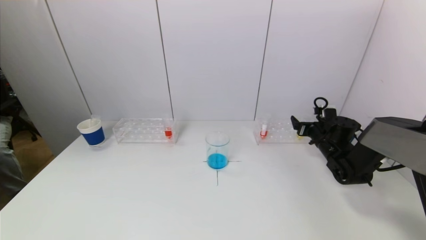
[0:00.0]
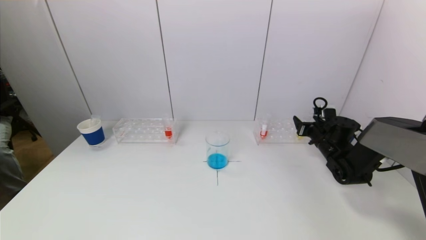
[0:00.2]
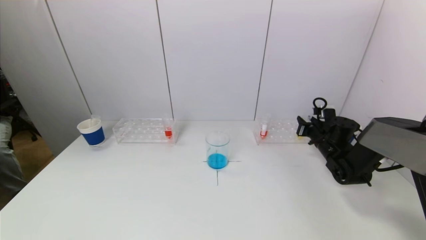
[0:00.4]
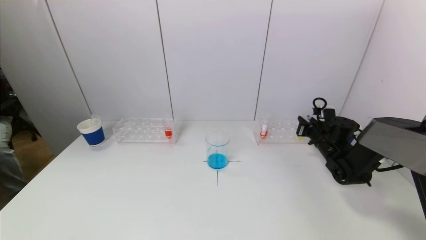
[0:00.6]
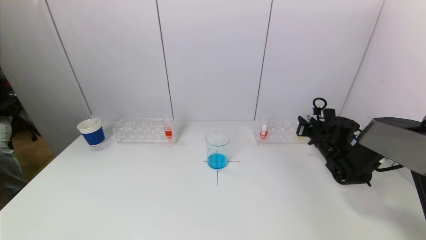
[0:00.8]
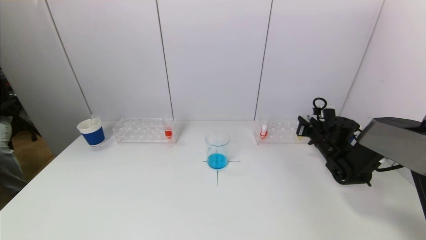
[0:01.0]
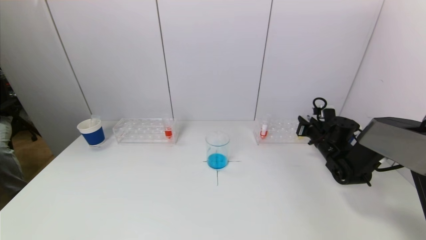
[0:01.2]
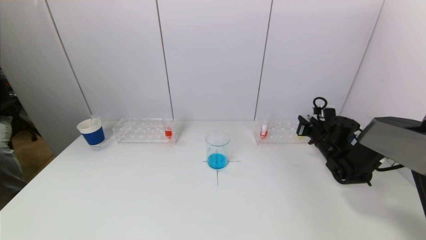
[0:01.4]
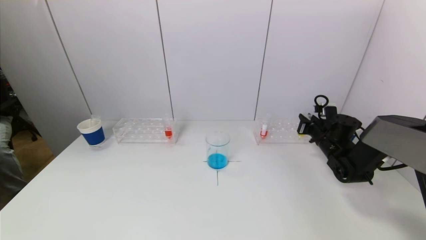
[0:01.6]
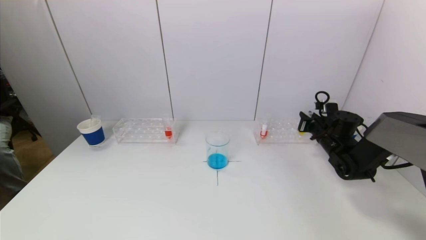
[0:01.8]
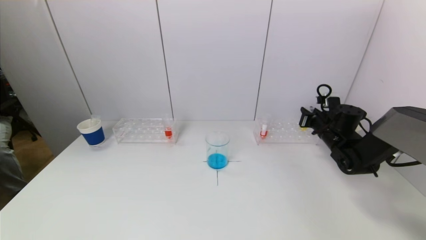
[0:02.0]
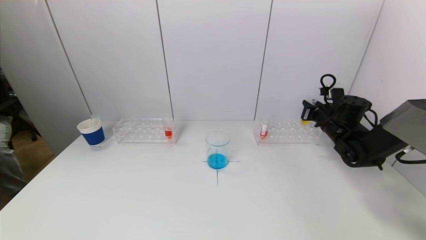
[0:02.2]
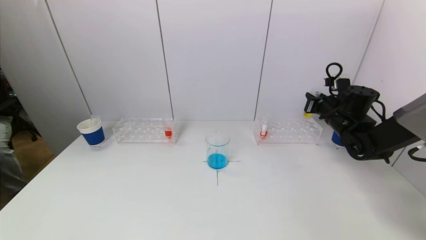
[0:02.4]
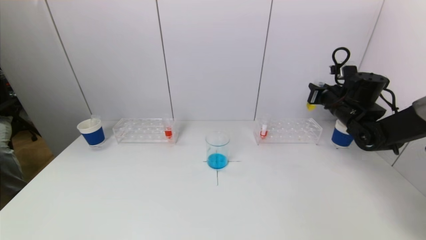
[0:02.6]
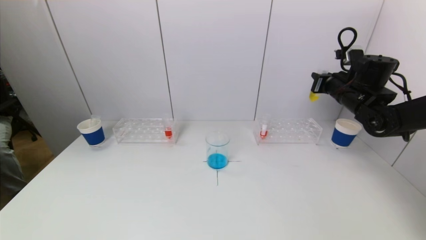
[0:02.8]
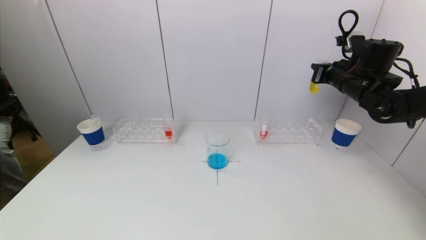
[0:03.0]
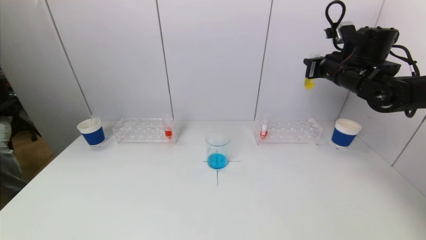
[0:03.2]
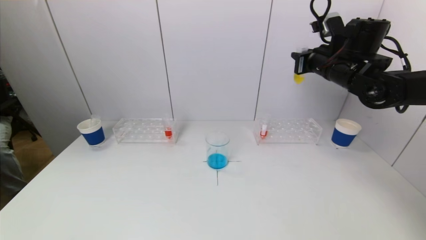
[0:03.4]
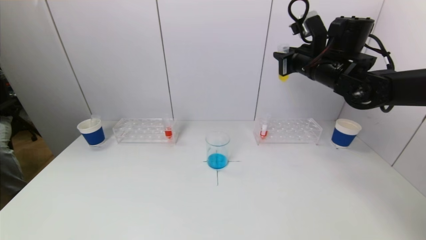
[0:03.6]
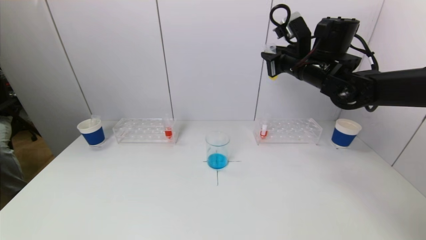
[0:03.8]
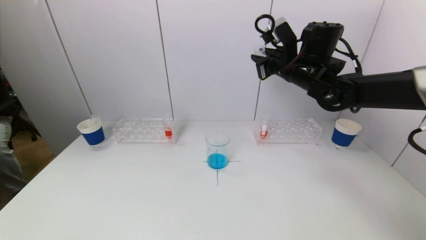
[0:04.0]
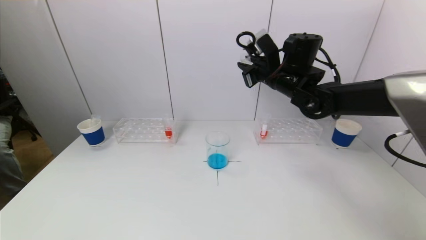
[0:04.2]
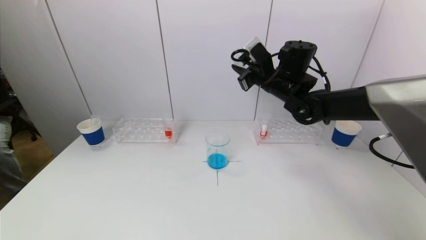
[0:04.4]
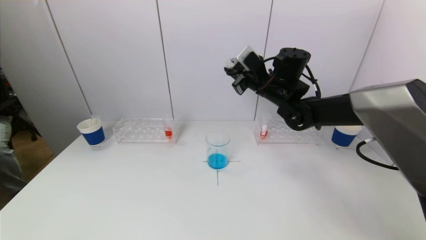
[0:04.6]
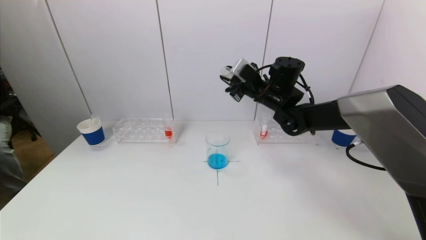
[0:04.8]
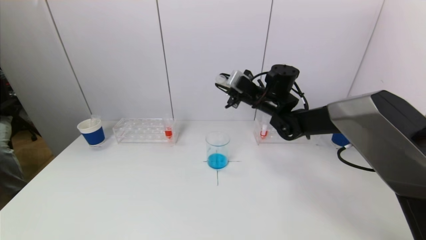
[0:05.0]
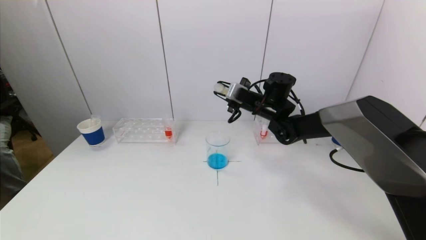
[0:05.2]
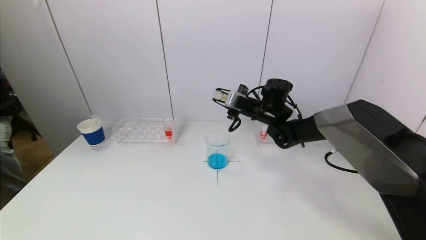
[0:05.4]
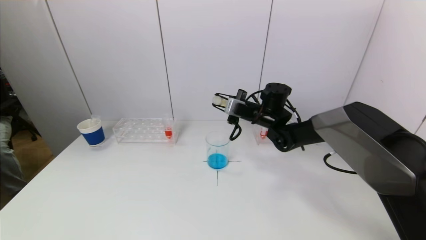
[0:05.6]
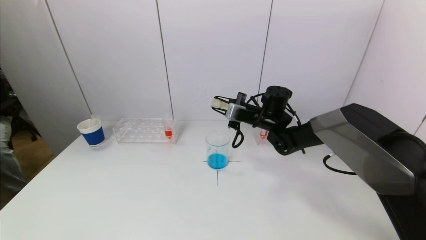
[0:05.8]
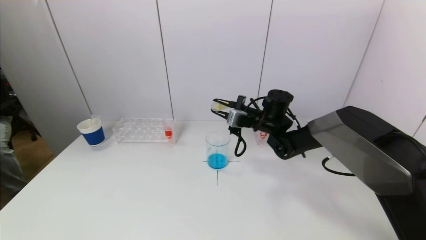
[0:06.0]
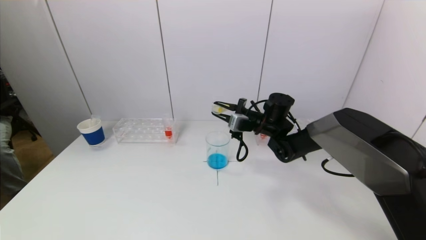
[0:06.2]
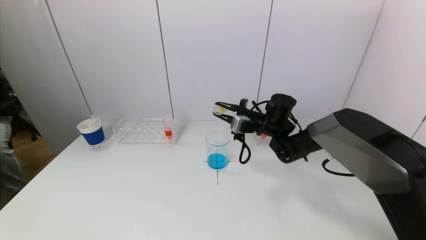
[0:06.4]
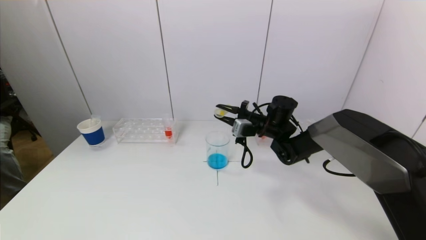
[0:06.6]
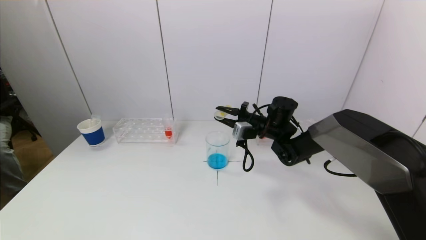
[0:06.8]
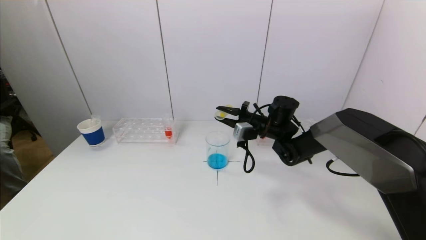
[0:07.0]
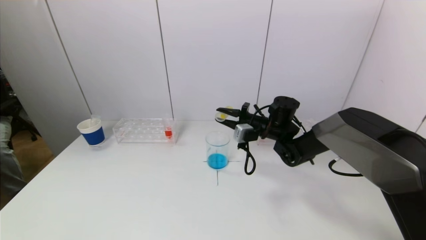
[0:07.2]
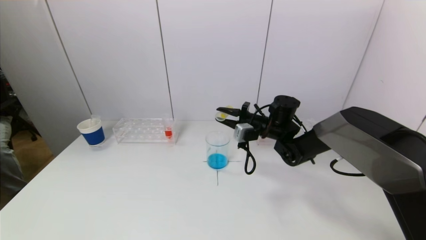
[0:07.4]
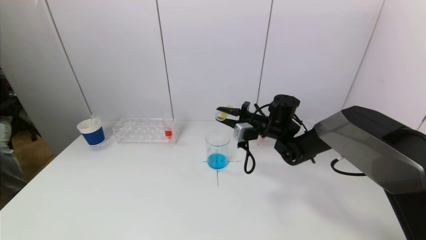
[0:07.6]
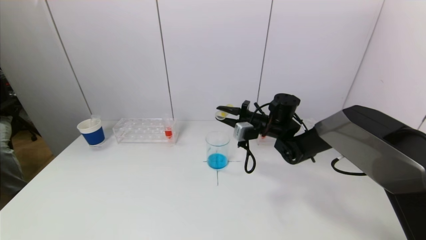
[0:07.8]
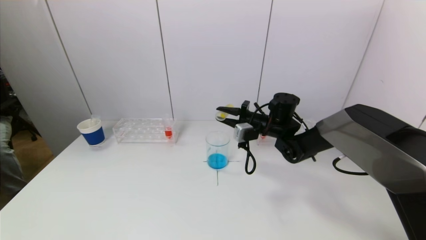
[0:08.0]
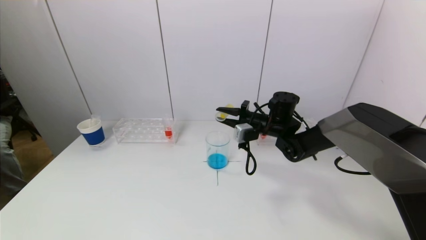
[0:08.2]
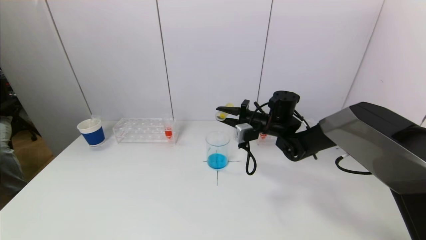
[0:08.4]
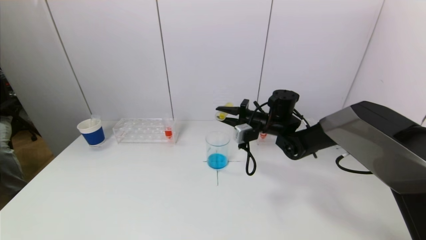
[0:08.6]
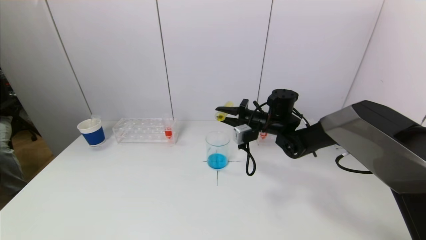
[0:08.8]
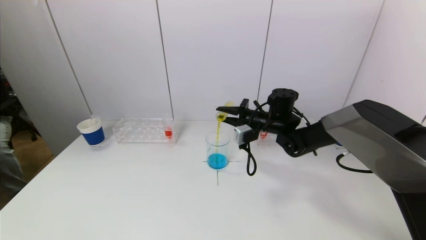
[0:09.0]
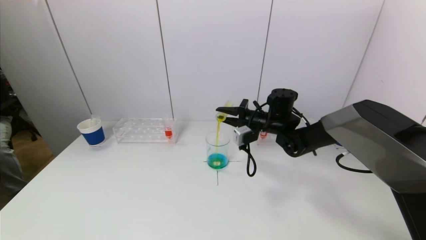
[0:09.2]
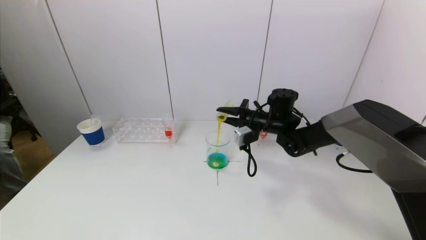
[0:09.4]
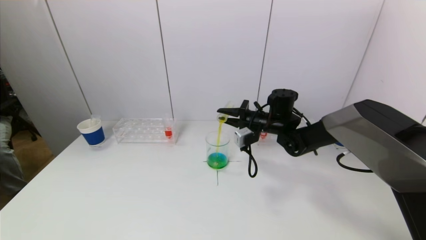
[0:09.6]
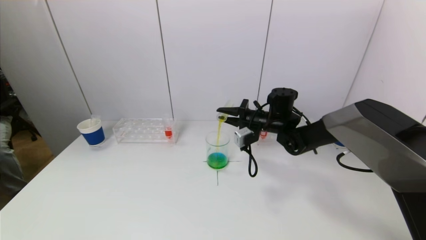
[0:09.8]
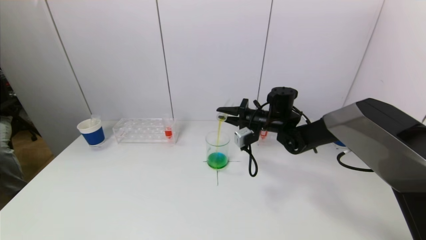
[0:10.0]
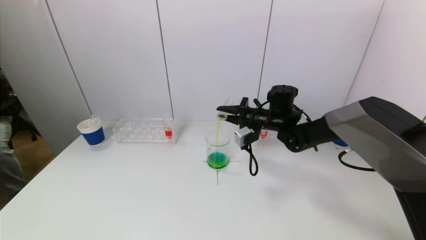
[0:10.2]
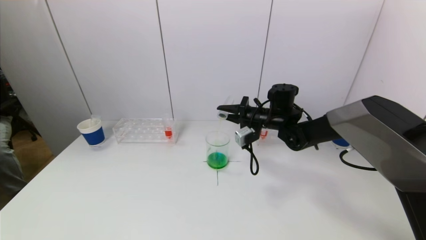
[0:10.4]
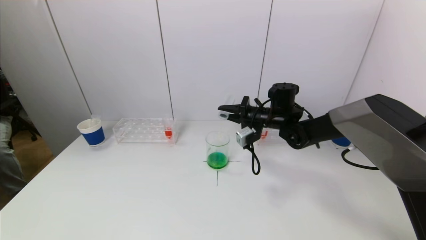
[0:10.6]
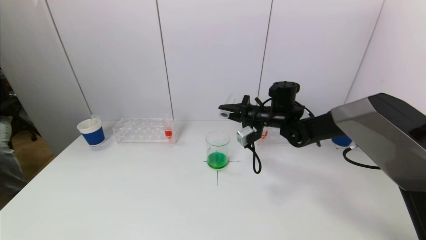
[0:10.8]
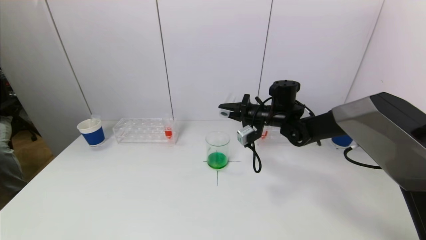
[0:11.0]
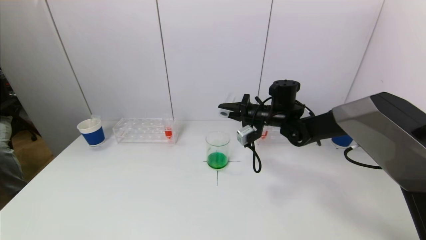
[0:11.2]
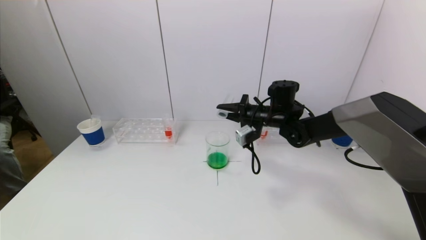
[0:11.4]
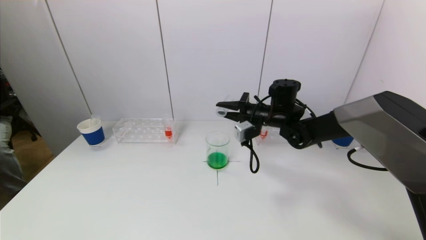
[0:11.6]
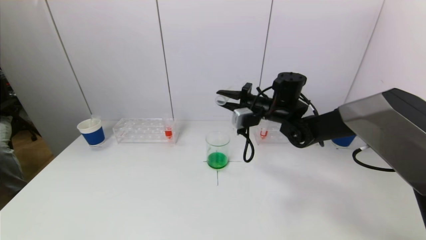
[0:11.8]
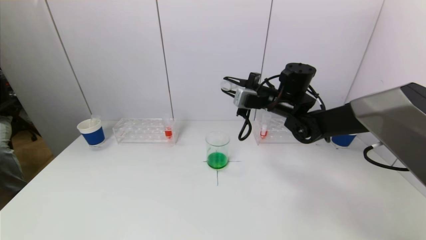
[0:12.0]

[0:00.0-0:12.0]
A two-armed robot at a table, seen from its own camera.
Task of the whole recording: pick up a test tube with pigment on left test tube rack and a test tube with pigment on right test tube rack by grippers and pour them into the beaker.
Step, 0:01.0 to 0:11.0: Pour the yellow reagent into the graduated cylinder with the right gripper.
0:00.0 to 0:01.6: The right gripper closes its fingers.
0:01.6 to 0:03.0: The right gripper heads upward, covering approximately 20 cm.
0:03.0 to 0:04.4: The right gripper shifts approximately 15 cm to the left.
0:04.4 to 0:06.0: The right gripper is displaced downward by approximately 10 cm.
0:06.0 to 0:07.6: The grippers move only a little.
0:07.6 to 0:09.0: The grippers move only a little.
0:09.0 to 0:10.4: The grippers move only a little.
0:10.4 to 0:12.0: The right gripper moves upward, about 5 cm.

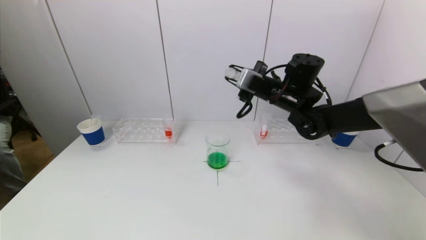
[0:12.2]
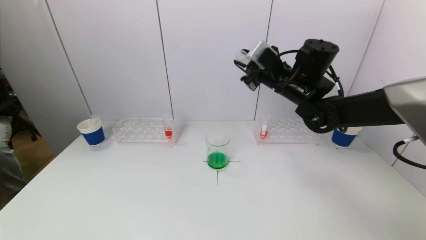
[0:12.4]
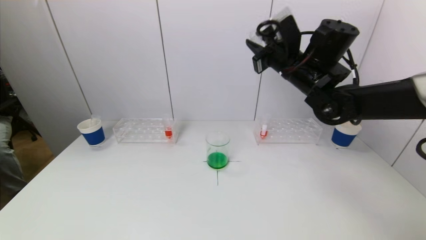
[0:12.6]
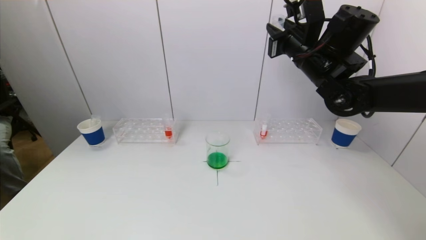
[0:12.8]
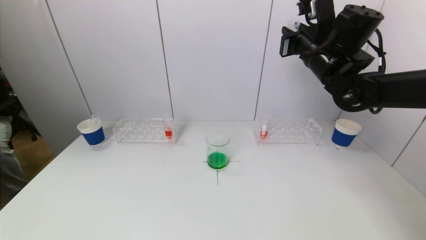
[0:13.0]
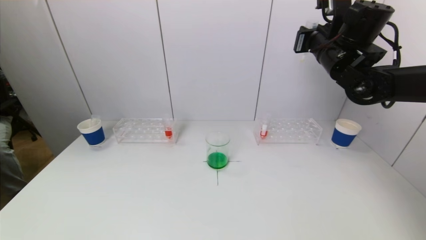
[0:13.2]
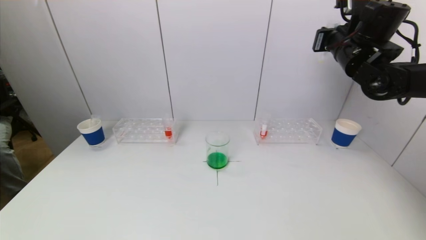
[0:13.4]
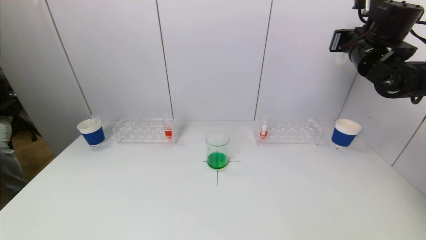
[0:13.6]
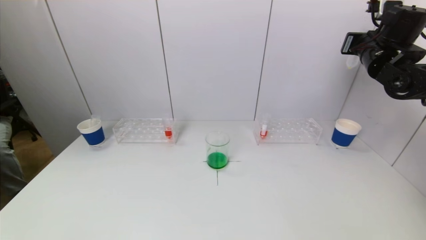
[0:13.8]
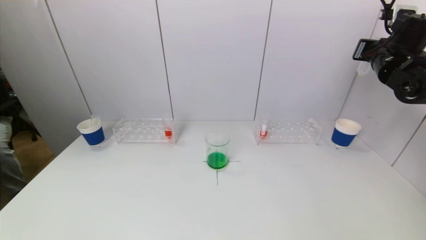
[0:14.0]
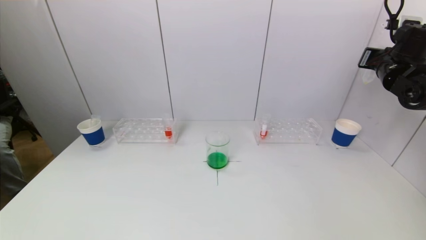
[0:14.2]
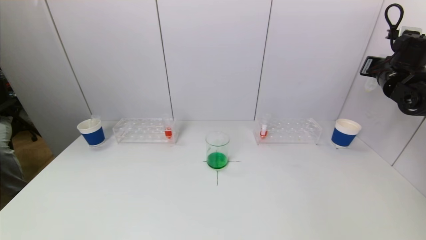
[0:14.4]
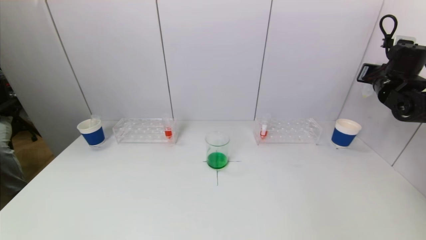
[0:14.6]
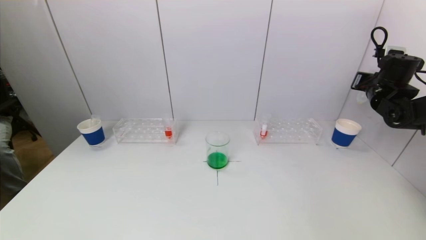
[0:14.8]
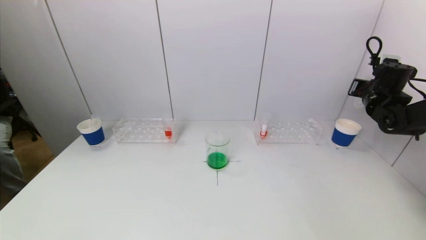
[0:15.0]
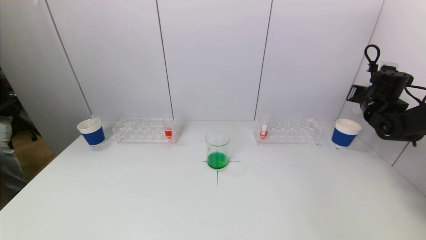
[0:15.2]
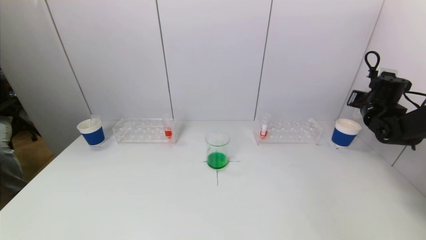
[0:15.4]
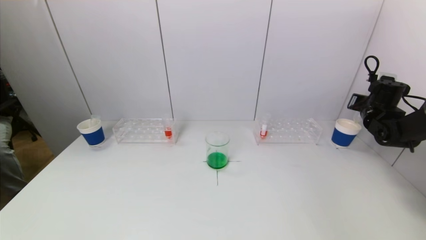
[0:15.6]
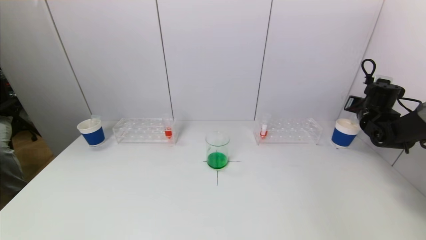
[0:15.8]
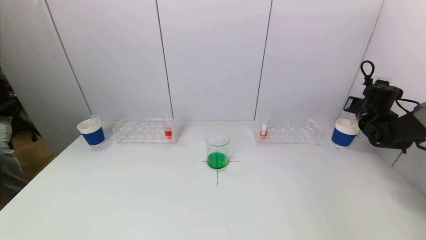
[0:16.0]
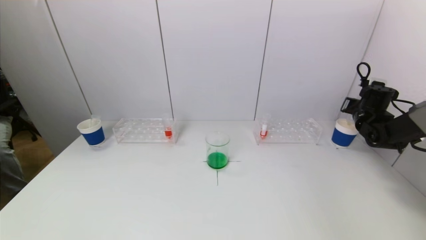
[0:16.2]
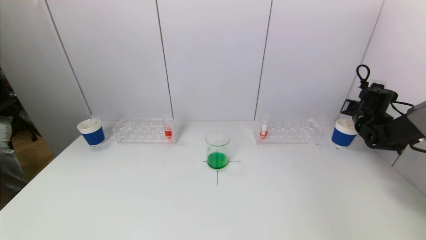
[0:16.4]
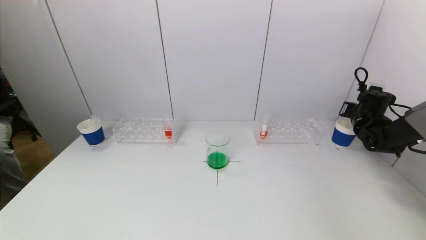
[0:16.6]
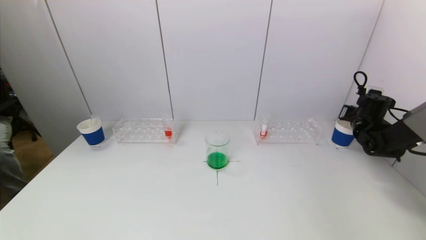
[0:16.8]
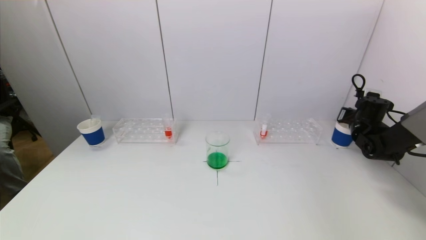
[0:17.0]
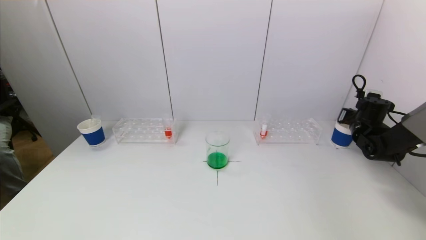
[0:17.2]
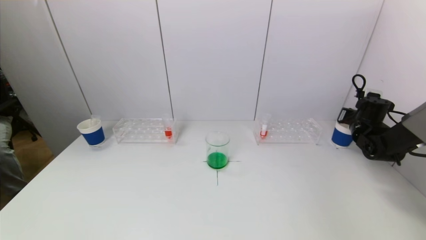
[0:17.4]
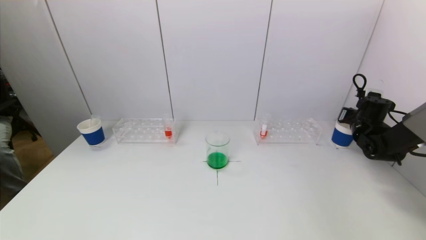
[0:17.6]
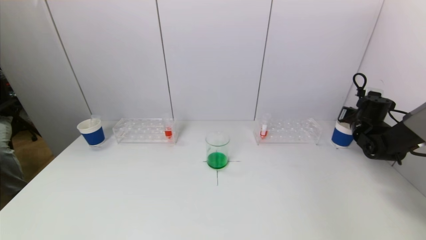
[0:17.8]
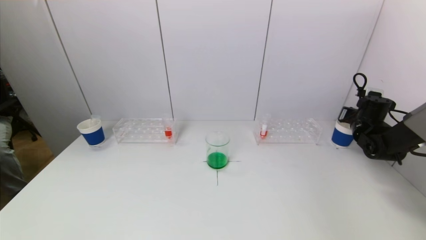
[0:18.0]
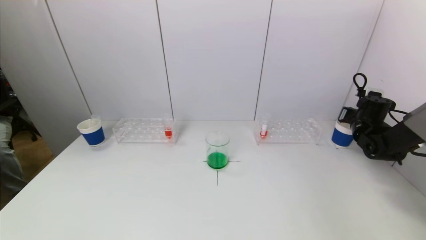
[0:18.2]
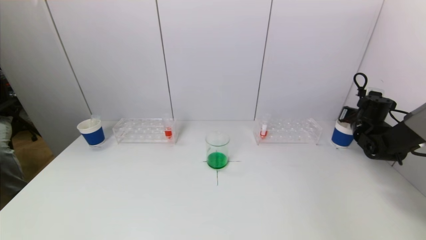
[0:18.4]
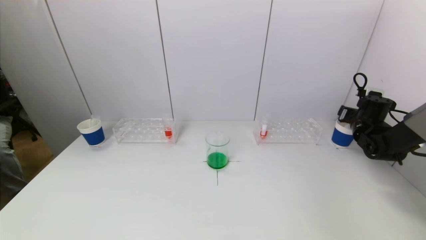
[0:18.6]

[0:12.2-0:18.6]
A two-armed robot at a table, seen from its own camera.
Task of the whole recording: pick up a test tube with pigment on left test tube rack and a test tube with pigment on right test tube rack by grippers and pour them into the beaker.
0:12.2 to 0:13.8: The right gripper heads to the right and upward, covering some 20 cm.
0:13.8 to 0:15.4: The right gripper goes roughly 15 cm downward and to the right.
0:15.4 to 0:17.0: The right gripper is displaced downward by roughly 5 cm.
0:17.0 to 0:18.6: The right gripper opens up.
